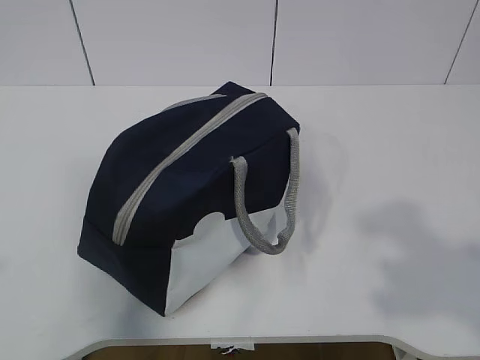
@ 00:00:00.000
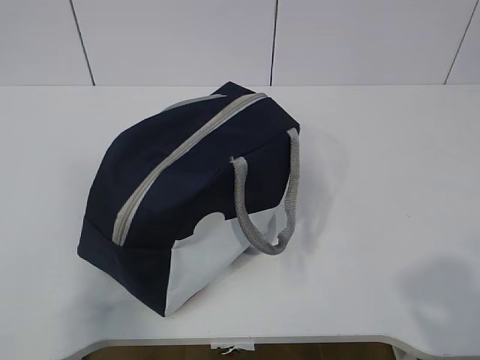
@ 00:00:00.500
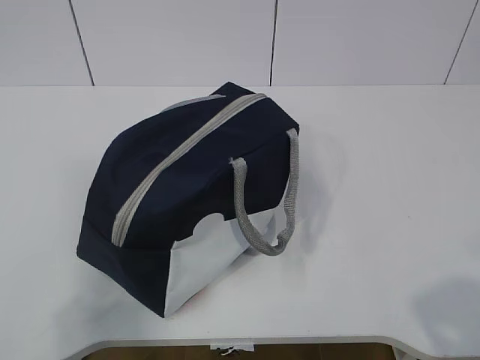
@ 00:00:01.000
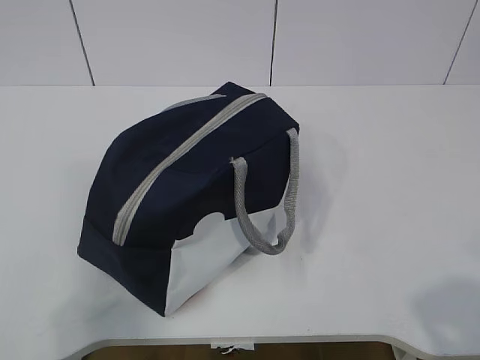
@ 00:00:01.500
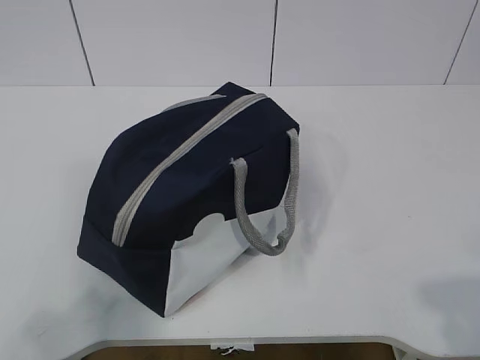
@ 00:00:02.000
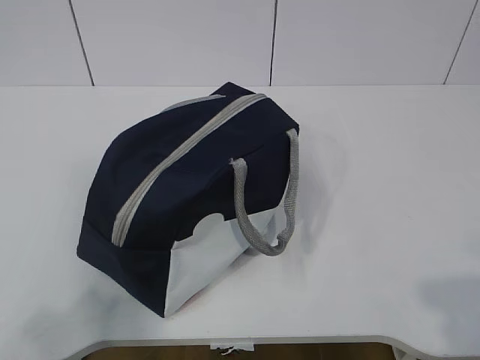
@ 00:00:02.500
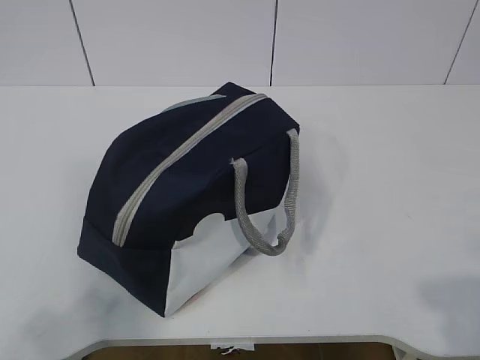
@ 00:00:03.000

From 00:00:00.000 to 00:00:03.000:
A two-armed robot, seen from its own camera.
From 00:00:00.000 to 00:00:01.500: The left gripper travels backward and downward by about 10 cm. Meanwhile the right gripper travels downward by roughly 10 cm.
